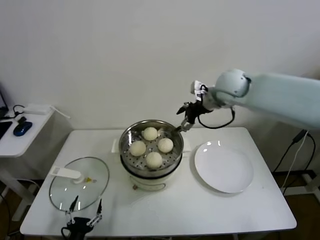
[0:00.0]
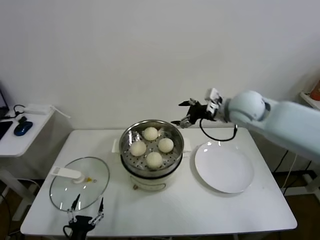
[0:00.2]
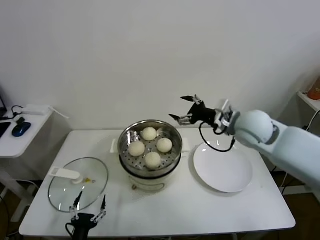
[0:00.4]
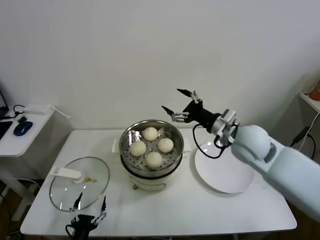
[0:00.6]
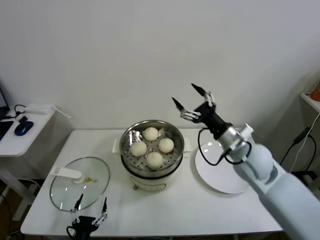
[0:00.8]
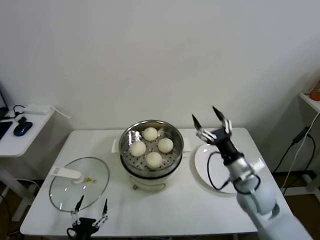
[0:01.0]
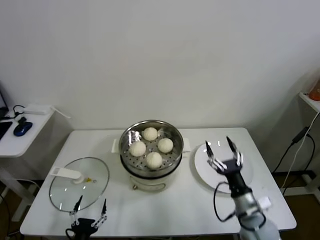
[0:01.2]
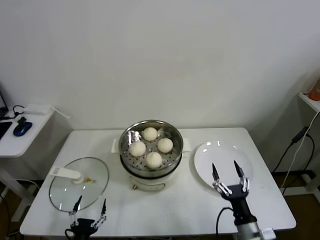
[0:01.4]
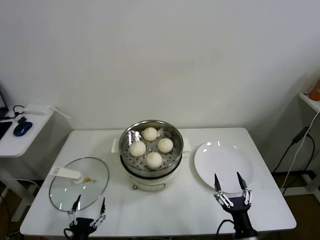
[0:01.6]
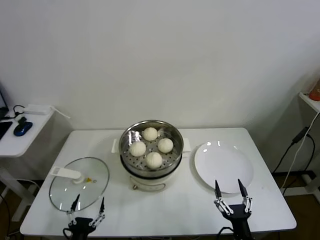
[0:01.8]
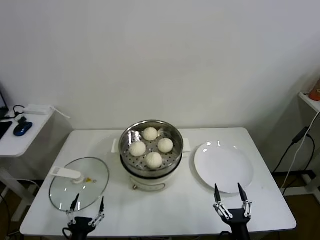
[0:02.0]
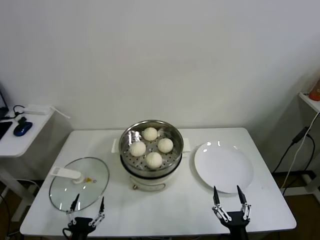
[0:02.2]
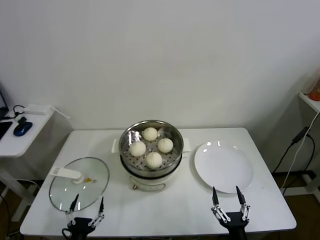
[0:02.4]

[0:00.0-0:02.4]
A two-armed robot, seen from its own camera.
Task of the whole recording: take steamed baozi put them in steamer.
0:00.0 to 0:01.2: The right gripper shifts about 40 cm downward and backward.
0:01.2 to 0:02.4: The right gripper travels backward and downward by roughly 20 cm.

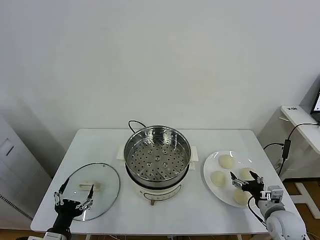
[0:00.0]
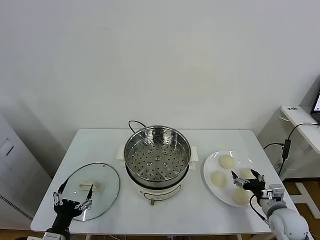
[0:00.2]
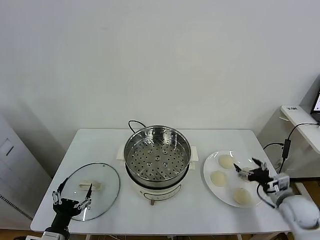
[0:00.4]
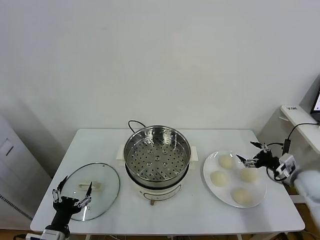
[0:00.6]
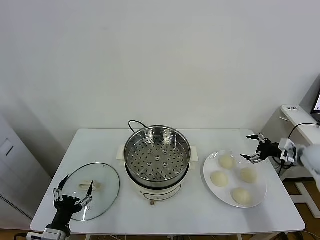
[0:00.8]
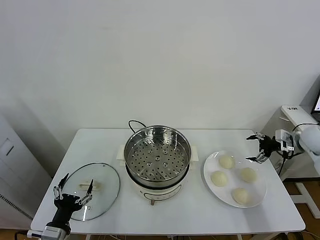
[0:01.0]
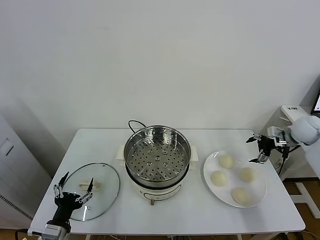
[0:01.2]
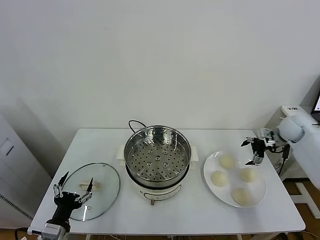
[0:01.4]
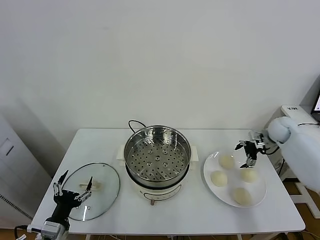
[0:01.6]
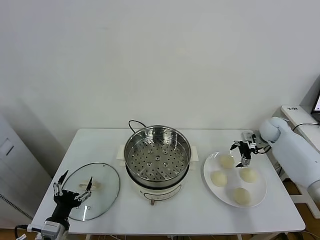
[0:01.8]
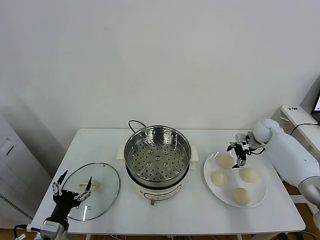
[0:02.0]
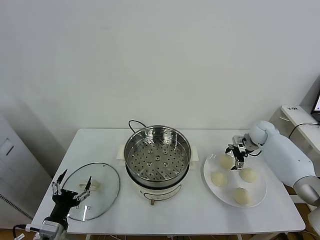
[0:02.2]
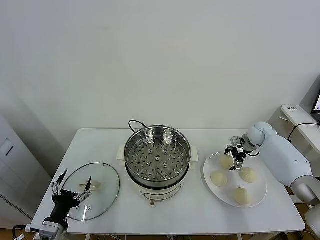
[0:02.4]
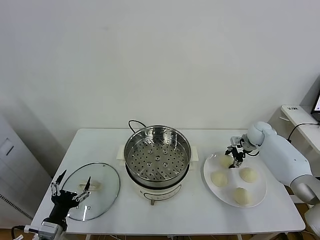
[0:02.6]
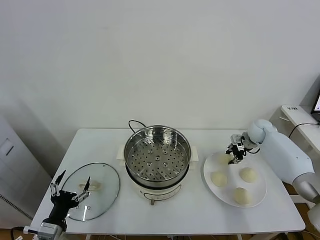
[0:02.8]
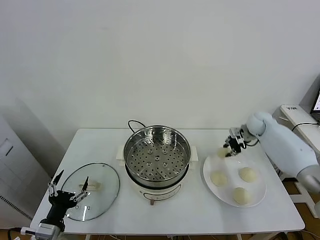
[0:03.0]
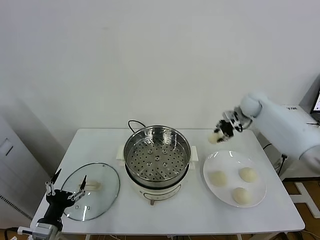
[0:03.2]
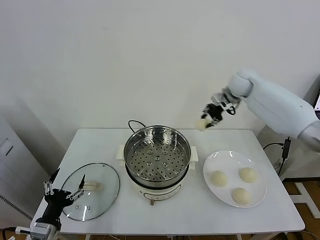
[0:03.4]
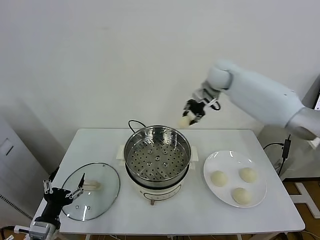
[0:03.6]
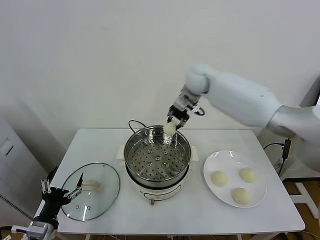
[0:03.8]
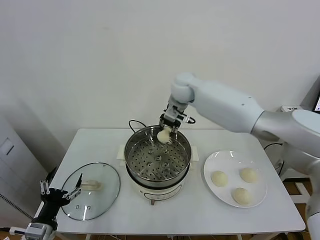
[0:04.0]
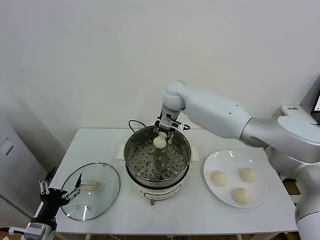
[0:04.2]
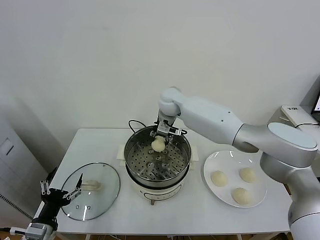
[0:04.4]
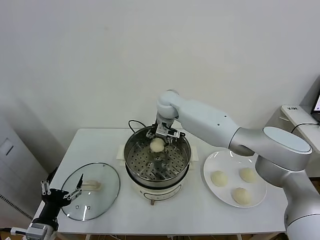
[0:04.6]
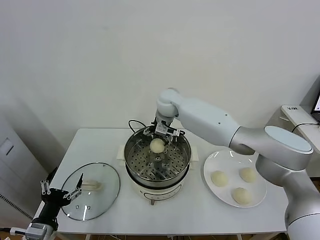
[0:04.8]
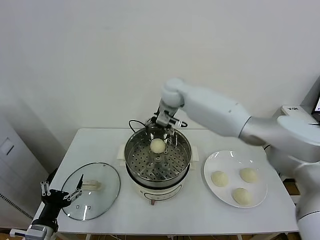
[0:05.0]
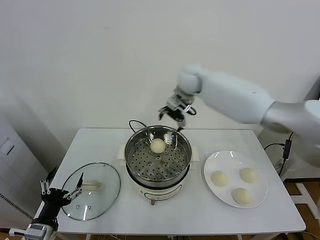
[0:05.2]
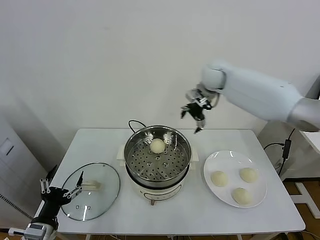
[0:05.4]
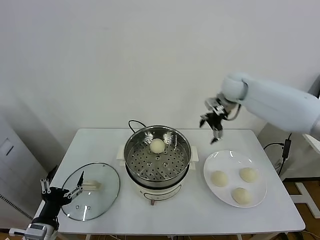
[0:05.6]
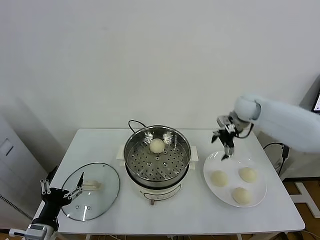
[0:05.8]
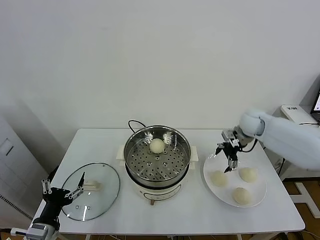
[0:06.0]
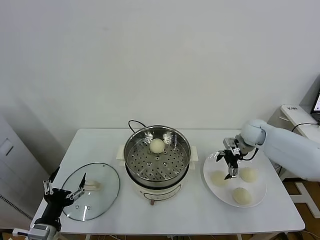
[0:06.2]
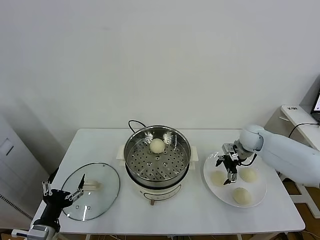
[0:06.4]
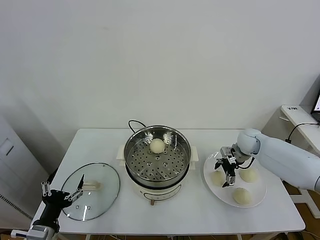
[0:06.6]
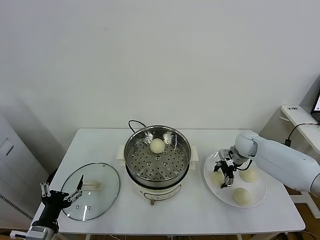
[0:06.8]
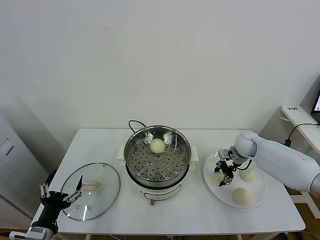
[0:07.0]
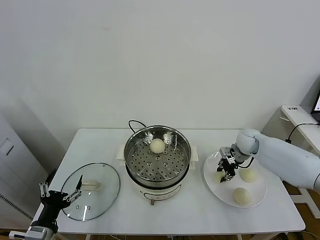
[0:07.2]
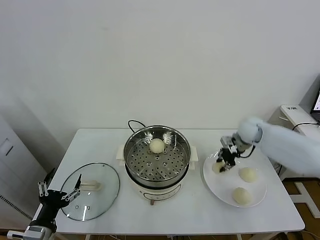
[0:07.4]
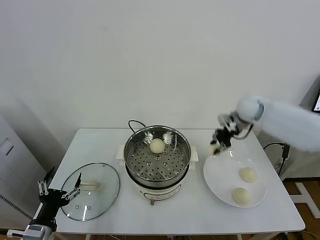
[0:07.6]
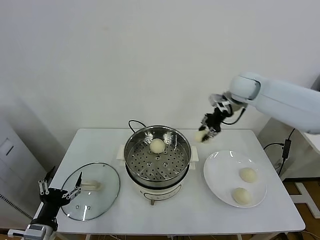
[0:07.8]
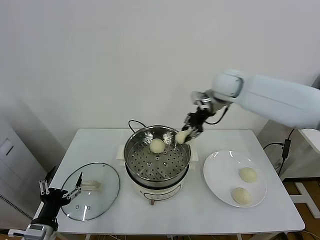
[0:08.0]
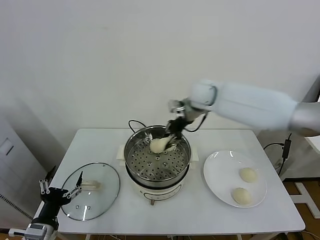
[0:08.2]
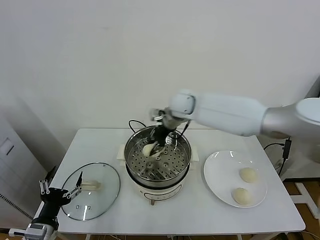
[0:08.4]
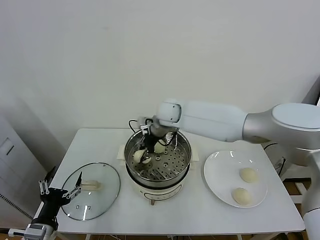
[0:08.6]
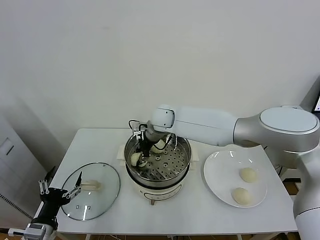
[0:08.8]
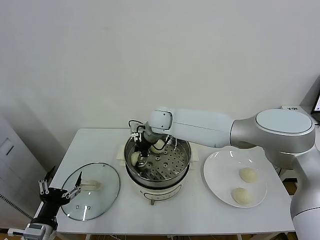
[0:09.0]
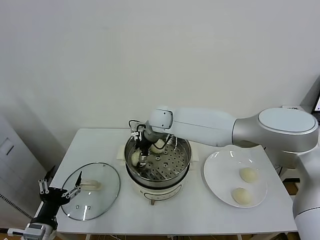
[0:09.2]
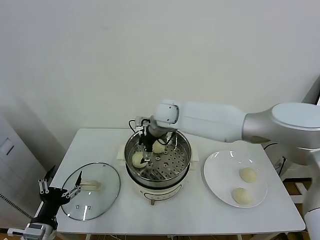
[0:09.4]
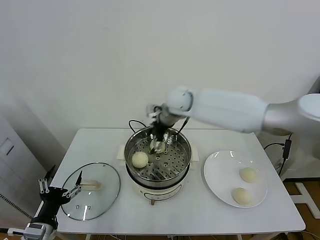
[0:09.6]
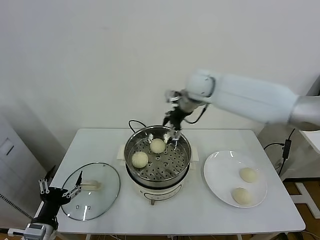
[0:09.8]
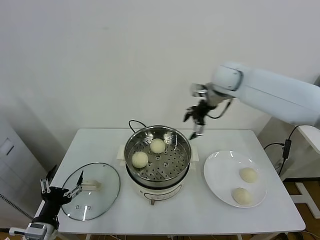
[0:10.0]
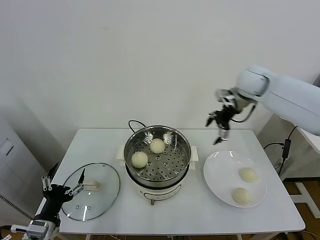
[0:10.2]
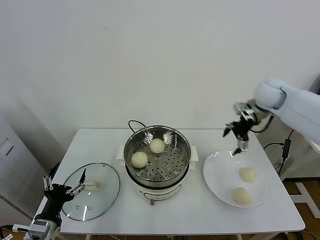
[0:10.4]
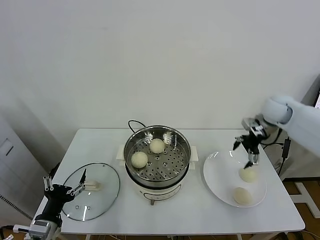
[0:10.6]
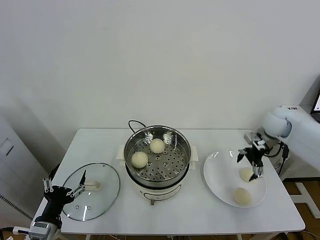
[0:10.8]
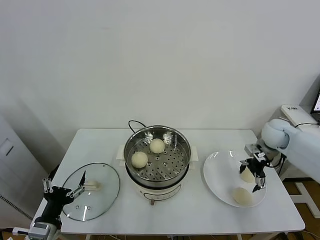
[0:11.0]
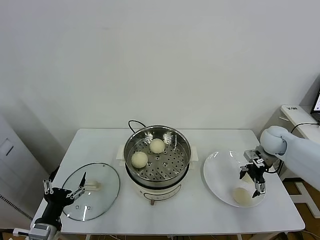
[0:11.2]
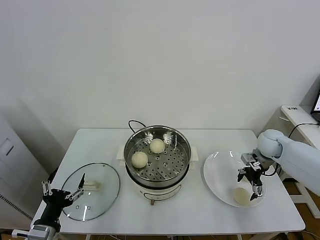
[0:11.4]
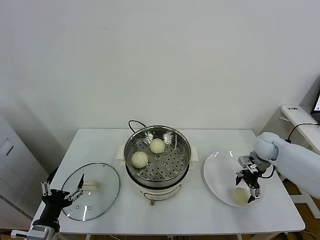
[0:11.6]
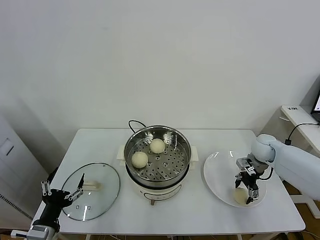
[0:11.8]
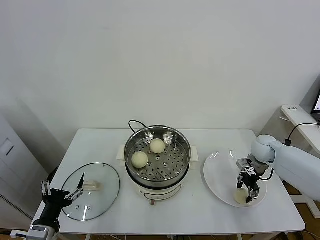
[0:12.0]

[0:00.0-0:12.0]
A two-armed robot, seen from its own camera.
Task of the whole recording: take steamed baozi put them in steamer.
Step, 0:00.0 to 0:02.4: Grasp the baozi in the plate with right gripper.
Step, 0:02.8 to 0:04.6: Place the baozi on the steamer with right gripper.
Step, 0:04.8 to 0:06.8: Grasp the baozi in the plate with right gripper.
Step, 0:07.2 to 0:09.0: Place the baozi on the steamer with right gripper.
Step, 0:09.4 to 0:11.8: Grasp the baozi in the plate with right gripper.
0:01.6 to 0:03.0: The right gripper shifts about 5 cm to the left, and closes its fingers.
0:03.0 to 0:04.4: The right gripper goes some 35 cm to the left, and opens its fingers.
0:04.4 to 0:06.0: The right gripper is displaced to the right by about 30 cm, and opens its fingers.
0:06.0 to 0:07.6: The right gripper moves upward, about 10 cm, and closes up.
0:07.6 to 0:09.0: The right gripper moves to the left, about 30 cm, and opens up.
0:09.0 to 0:10.4: The right gripper moves to the right, roughly 35 cm, and opens up.
0:10.4 to 0:12.0: The right gripper travels downward by approximately 20 cm, and closes.

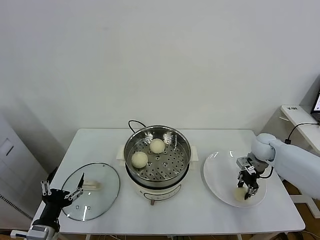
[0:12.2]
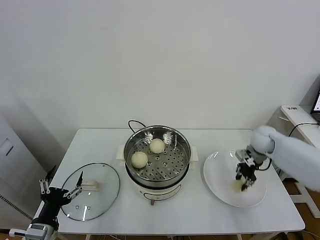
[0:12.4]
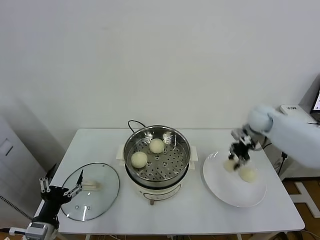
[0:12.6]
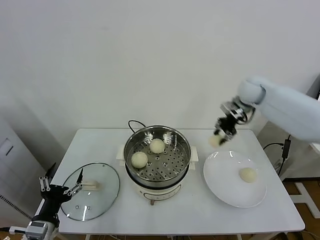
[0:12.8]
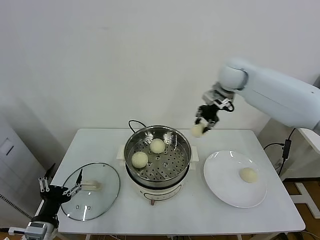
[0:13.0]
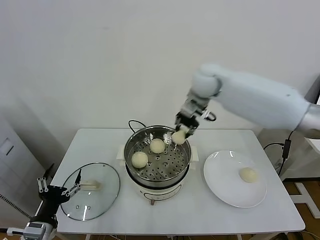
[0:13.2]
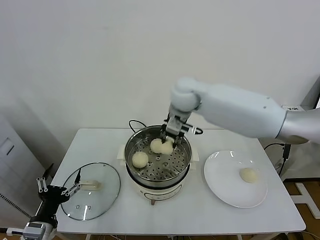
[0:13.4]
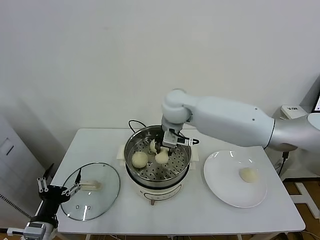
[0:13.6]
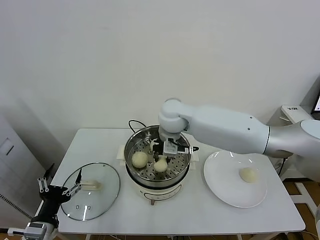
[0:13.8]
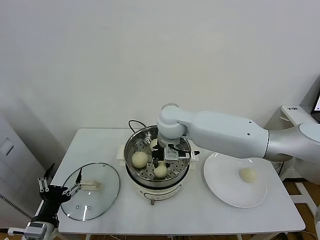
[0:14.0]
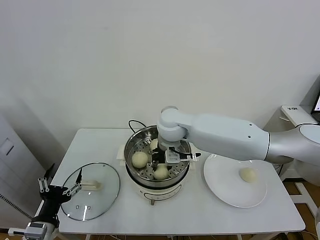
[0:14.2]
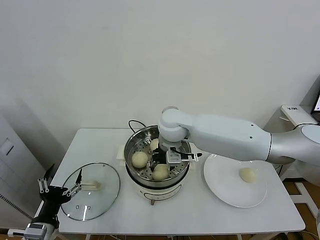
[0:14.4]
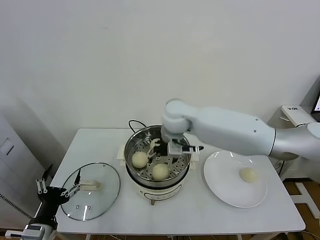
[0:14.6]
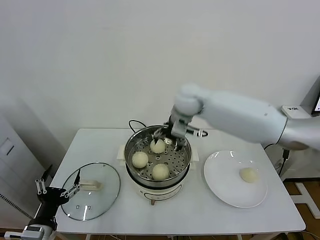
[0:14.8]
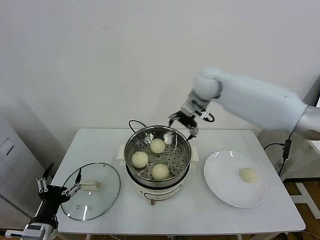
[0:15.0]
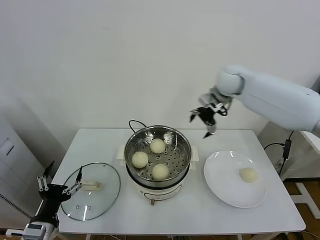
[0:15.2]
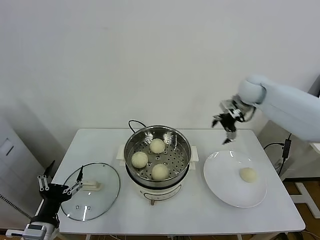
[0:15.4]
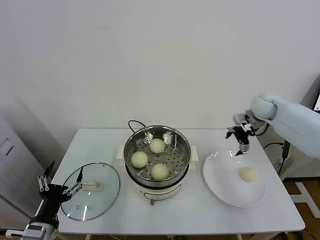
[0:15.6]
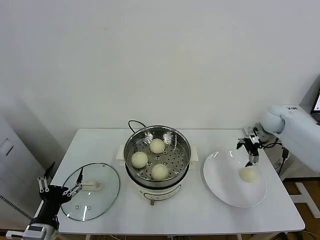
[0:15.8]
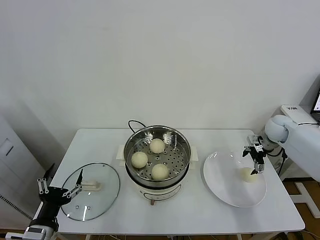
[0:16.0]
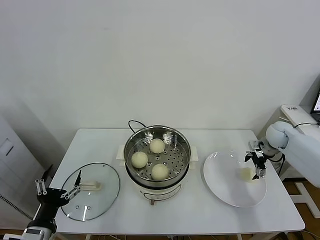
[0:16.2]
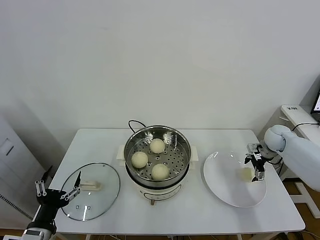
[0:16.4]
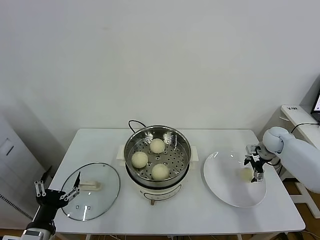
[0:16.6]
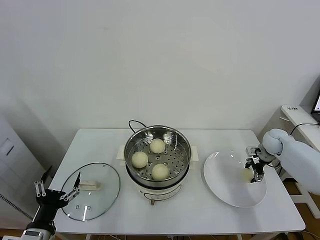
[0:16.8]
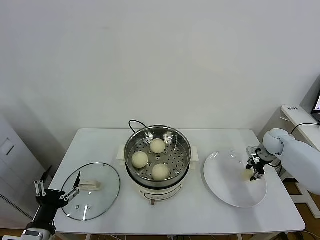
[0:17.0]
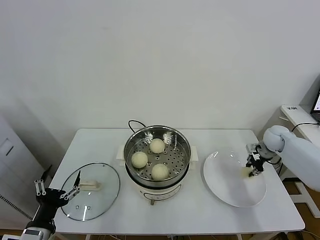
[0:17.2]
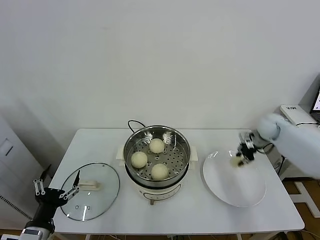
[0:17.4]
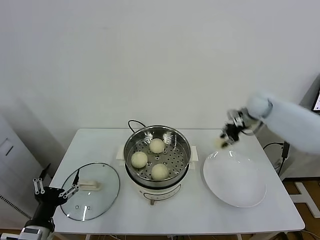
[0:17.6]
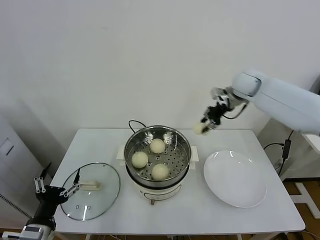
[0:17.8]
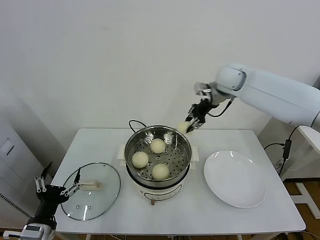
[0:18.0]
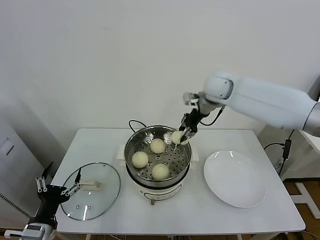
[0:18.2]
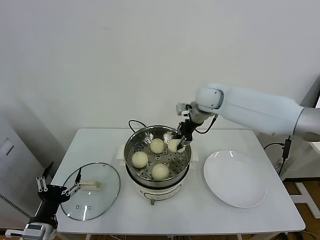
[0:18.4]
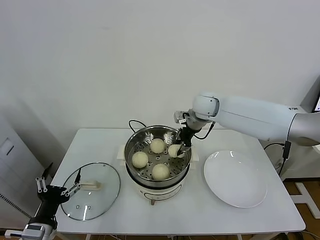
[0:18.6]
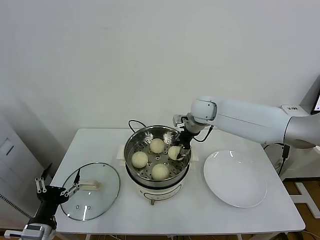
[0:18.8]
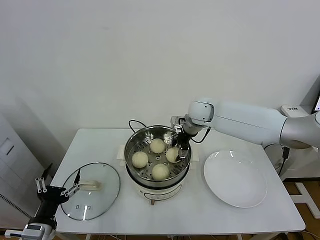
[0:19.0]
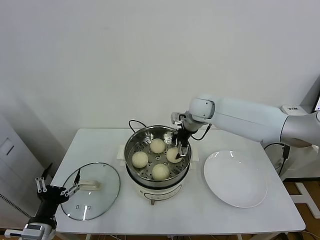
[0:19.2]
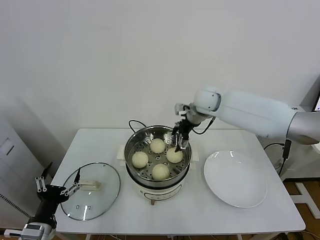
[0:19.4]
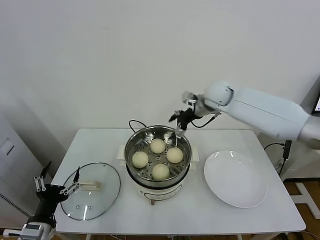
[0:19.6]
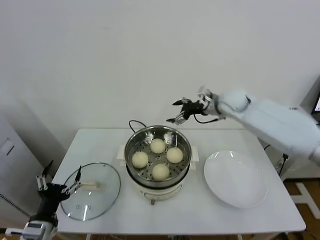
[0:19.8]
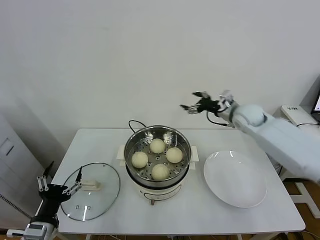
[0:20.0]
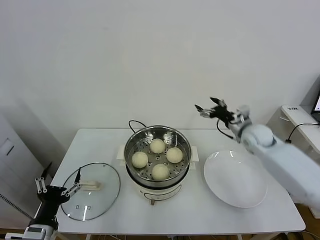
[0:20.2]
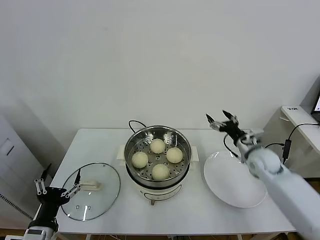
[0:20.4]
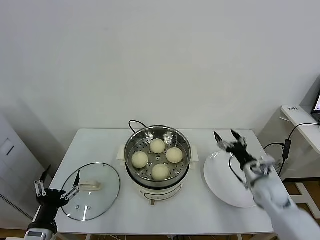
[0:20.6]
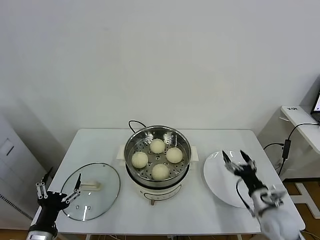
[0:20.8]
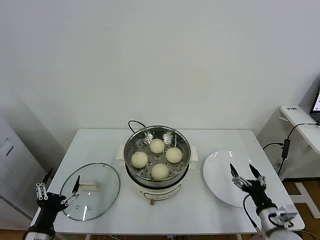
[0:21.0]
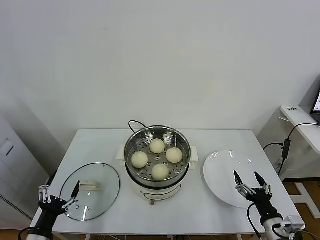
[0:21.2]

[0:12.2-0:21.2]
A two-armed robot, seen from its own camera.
Task of the whole recording: take steamed baozi put them in steamer.
Step, 0:12.2 to 0:14.4: Place the baozi on the steamer with right gripper.
Step, 0:14.6 to 0:17.0: Grasp the baozi in the plate with right gripper.
Step, 0:17.2 to 0:19.2: Place the baozi on the steamer with right gripper.
0:12.2 to 0:13.8: The right gripper goes some 40 cm to the left and upward.
0:13.8 to 0:15.2: The right gripper moves to the right and forward, approximately 20 cm, and opens up.
0:15.2 to 0:16.6: The right gripper moves downward and to the right, some 30 cm.
0:16.6 to 0:18.2: The right gripper heads to the left and upward, covering some 35 cm, and closes its fingers.
0:18.2 to 0:19.8: The right gripper shifts some 10 cm to the right and downward, and opens up.
0:19.8 to 0:21.2: The right gripper travels backward and downward by approximately 50 cm. Meanwhile the left gripper travels downward by approximately 5 cm.
